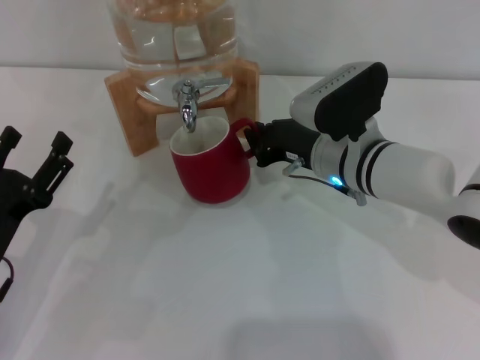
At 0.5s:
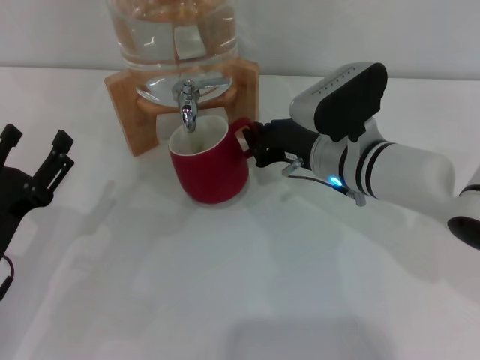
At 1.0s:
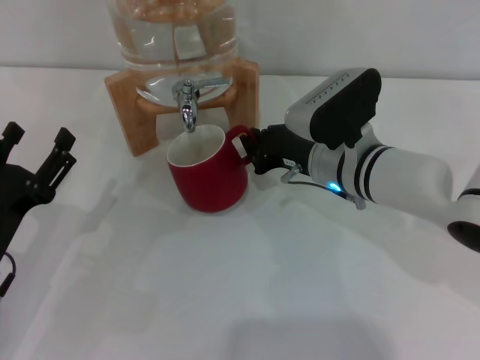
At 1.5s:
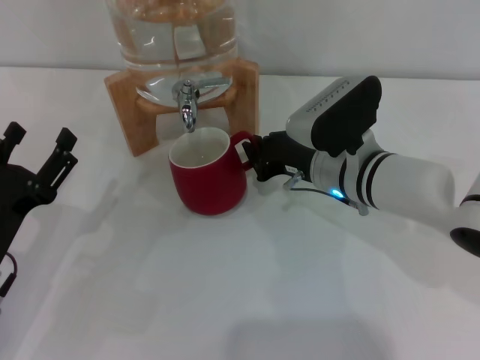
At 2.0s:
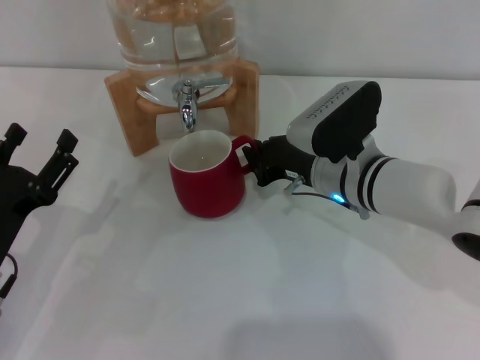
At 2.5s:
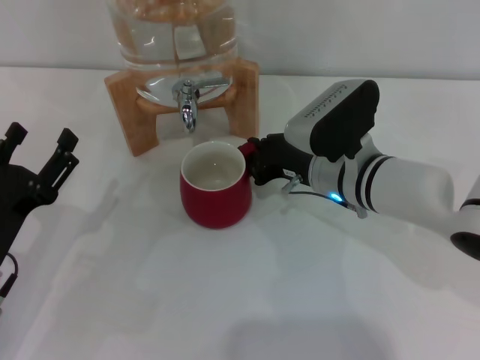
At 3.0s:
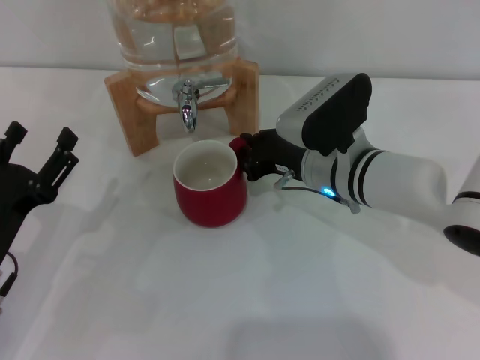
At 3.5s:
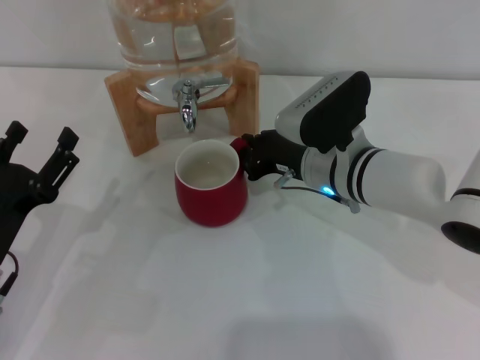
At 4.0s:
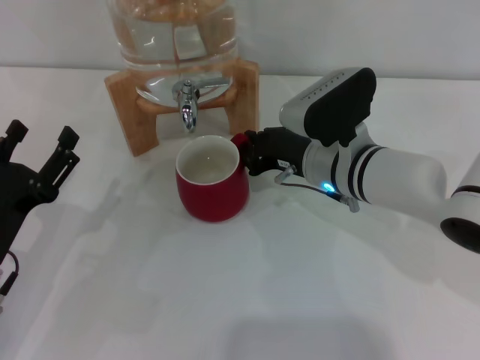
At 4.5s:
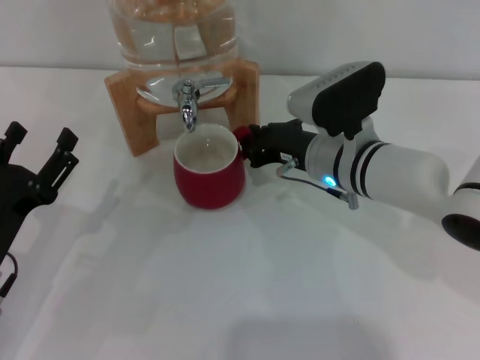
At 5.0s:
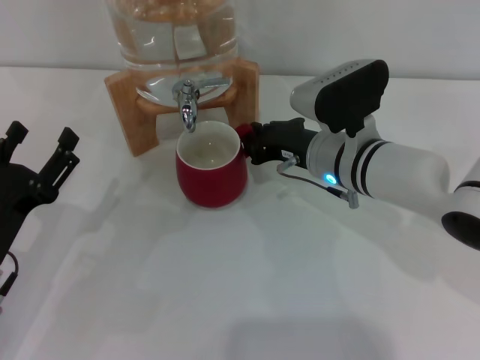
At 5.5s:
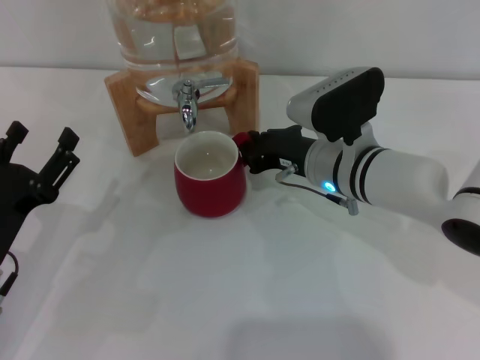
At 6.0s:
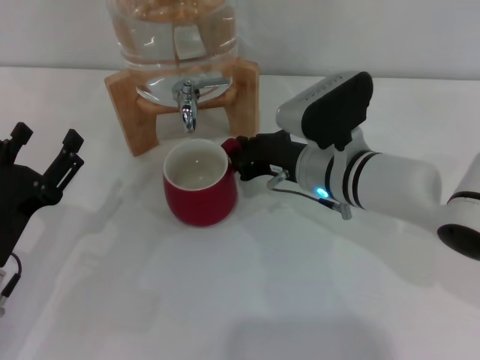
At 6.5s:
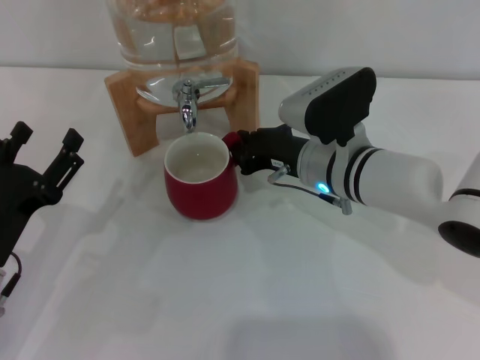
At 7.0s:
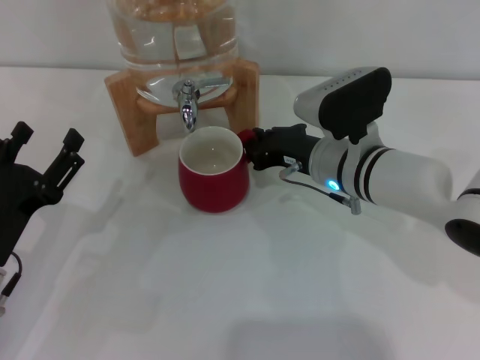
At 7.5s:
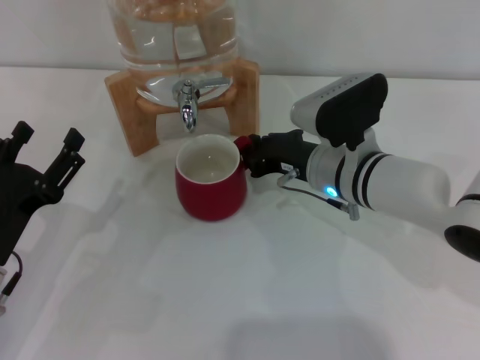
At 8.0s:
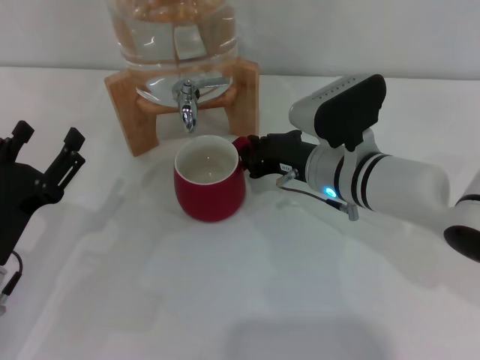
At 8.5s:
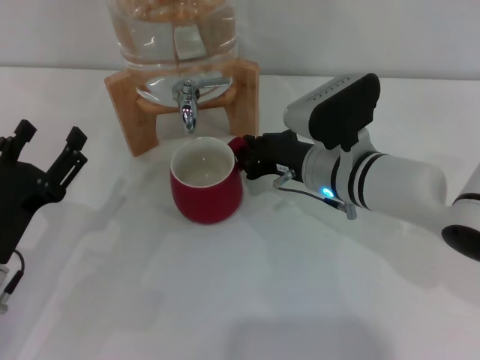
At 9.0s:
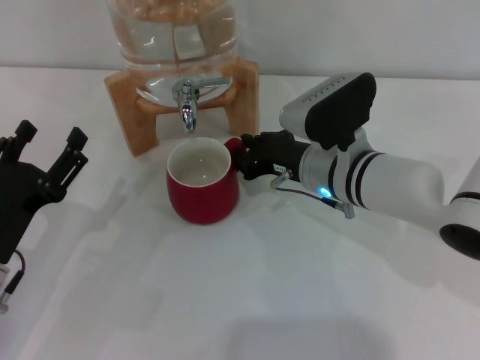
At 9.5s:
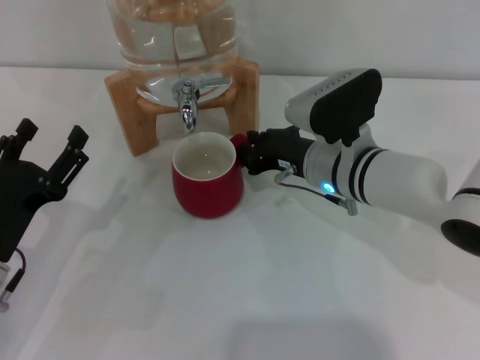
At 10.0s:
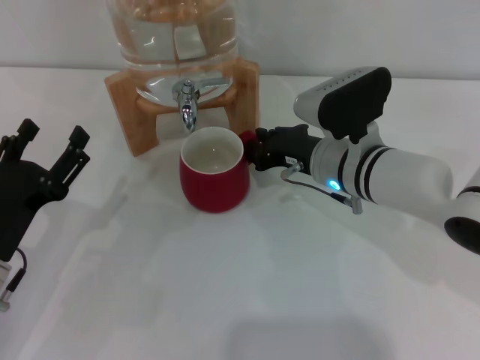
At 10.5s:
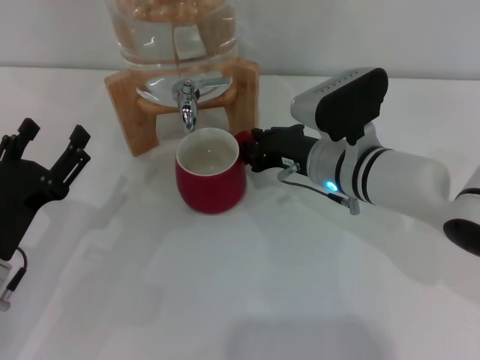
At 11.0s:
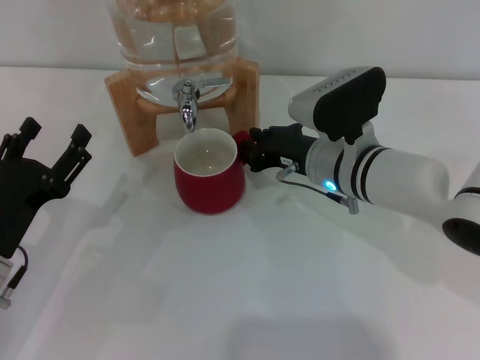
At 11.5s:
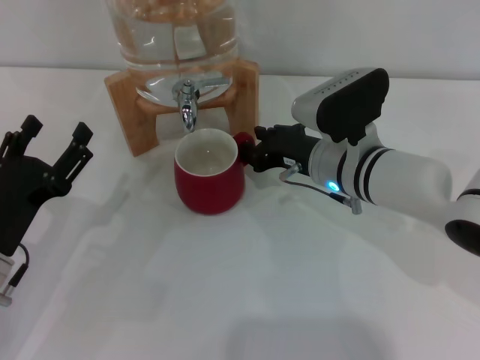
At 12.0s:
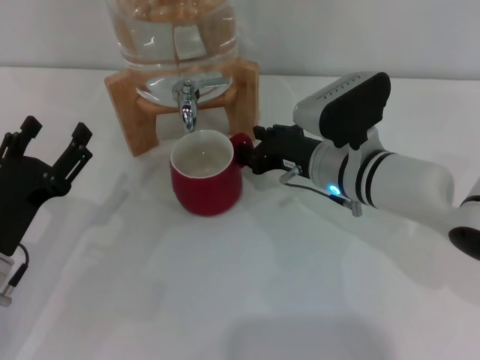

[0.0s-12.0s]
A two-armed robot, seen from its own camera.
Task of the whole recording: the right gripper pick up the red cup and place it horizontally under the faucet, the left gripper turn on the faucet to fill the cup, and then turn off the faucet.
0.0s to 8.0s: The grippers move only a little.
8.0s to 12.0s: Neither gripper changes place.

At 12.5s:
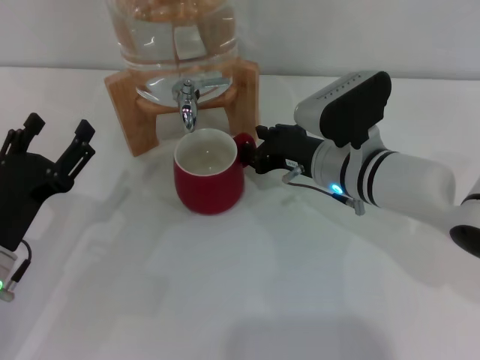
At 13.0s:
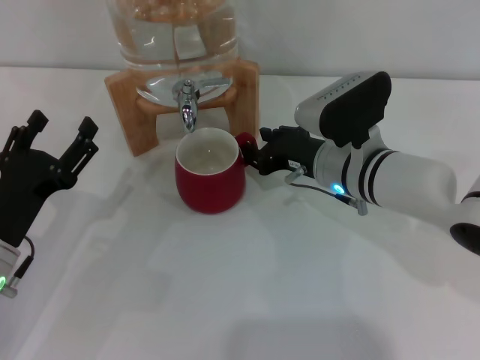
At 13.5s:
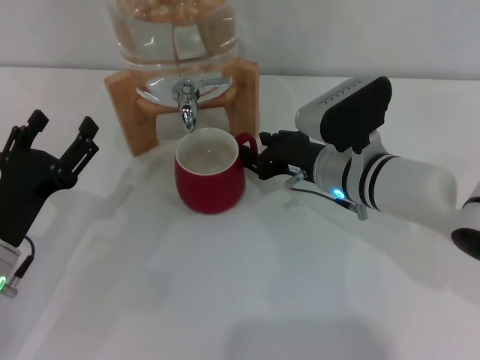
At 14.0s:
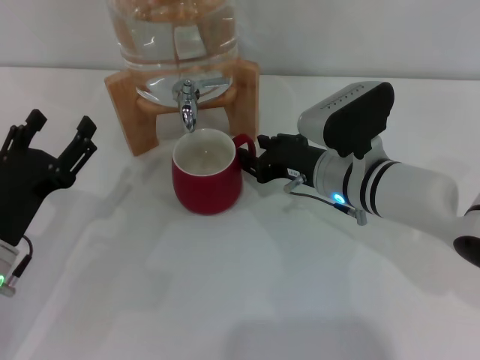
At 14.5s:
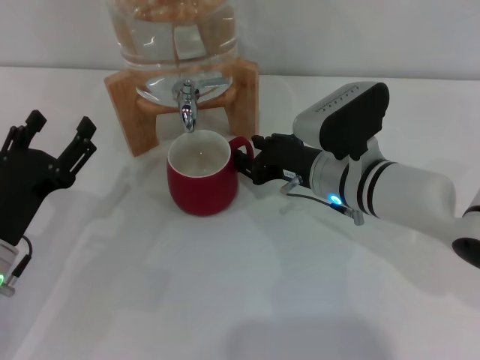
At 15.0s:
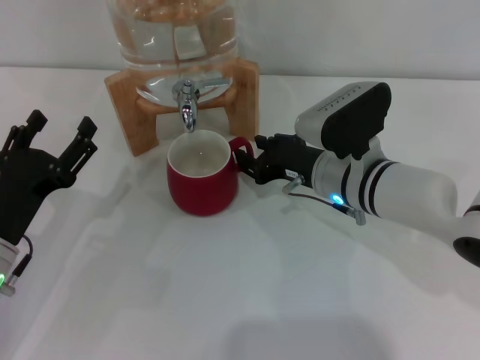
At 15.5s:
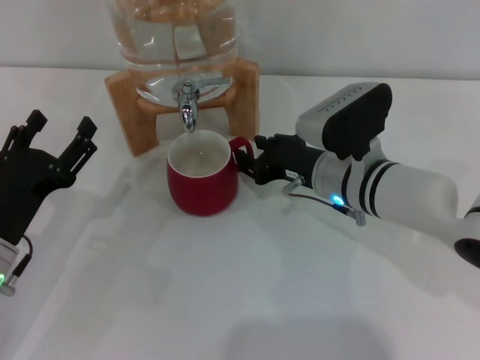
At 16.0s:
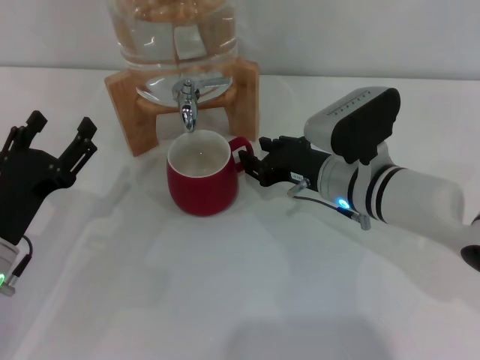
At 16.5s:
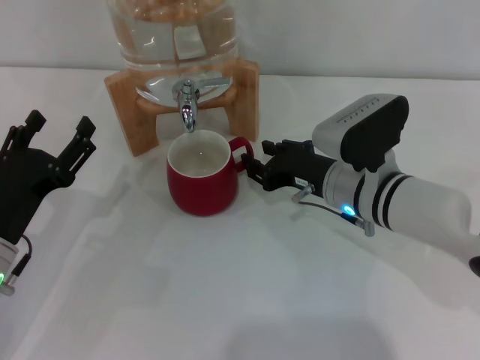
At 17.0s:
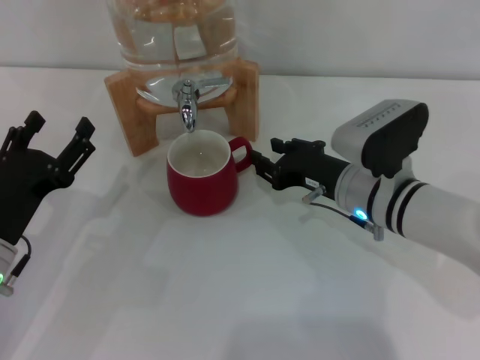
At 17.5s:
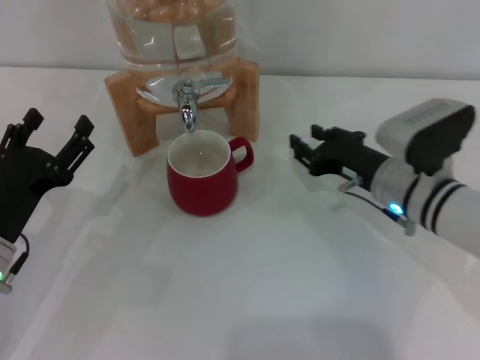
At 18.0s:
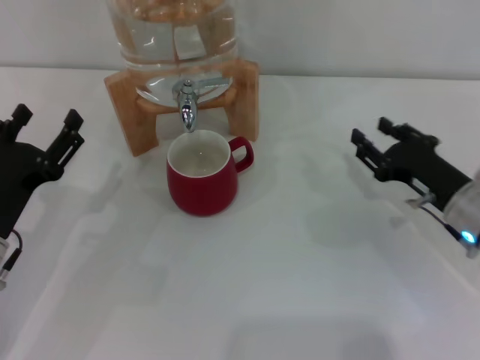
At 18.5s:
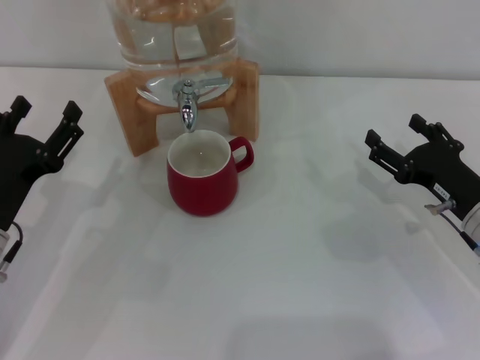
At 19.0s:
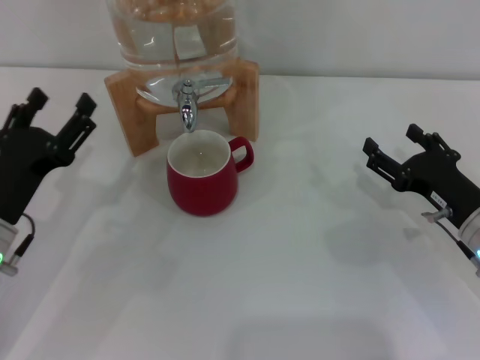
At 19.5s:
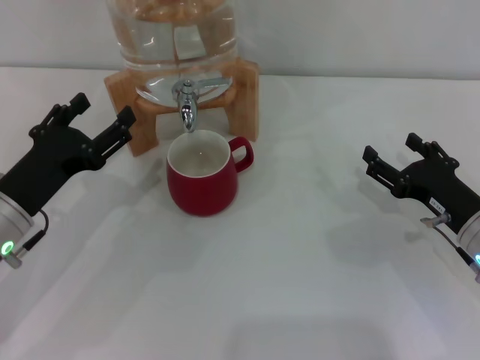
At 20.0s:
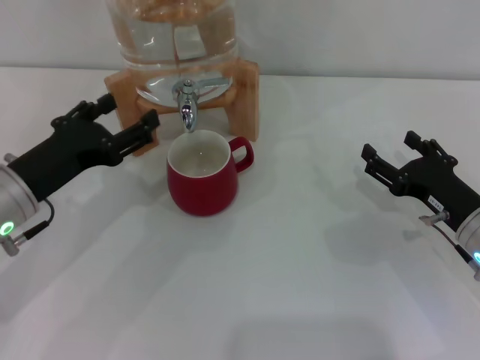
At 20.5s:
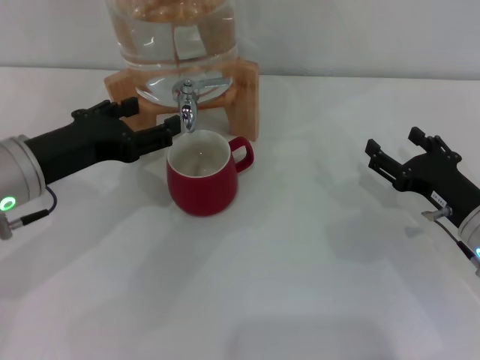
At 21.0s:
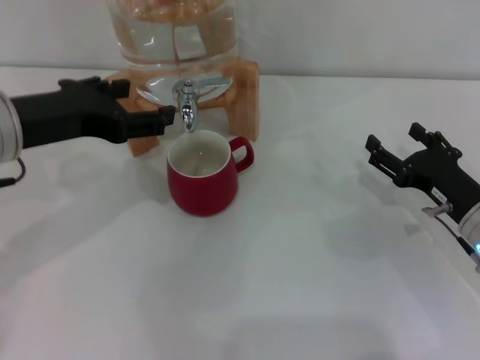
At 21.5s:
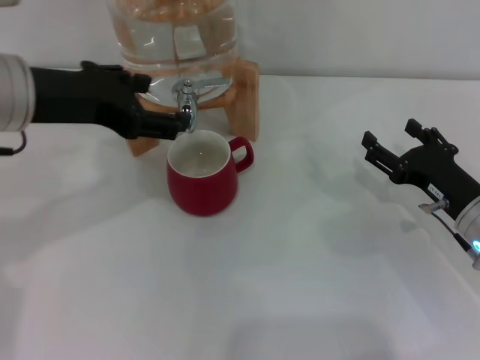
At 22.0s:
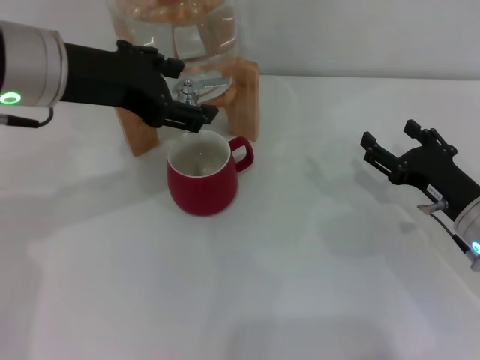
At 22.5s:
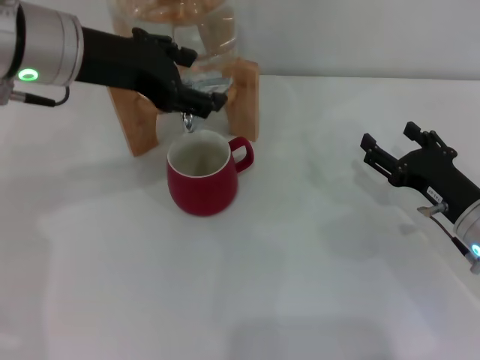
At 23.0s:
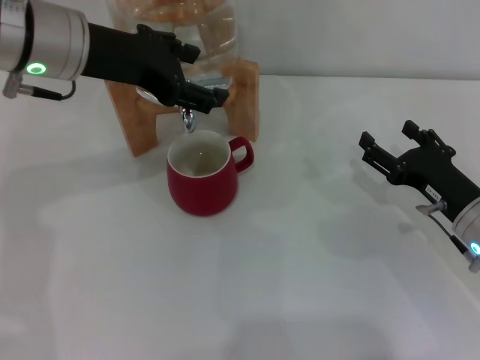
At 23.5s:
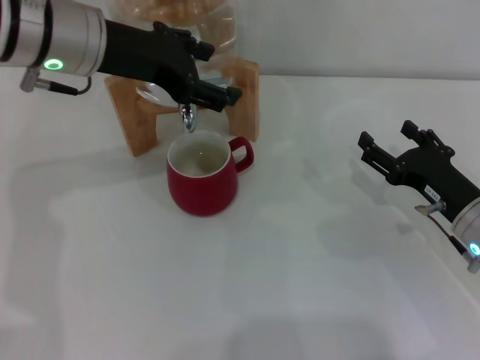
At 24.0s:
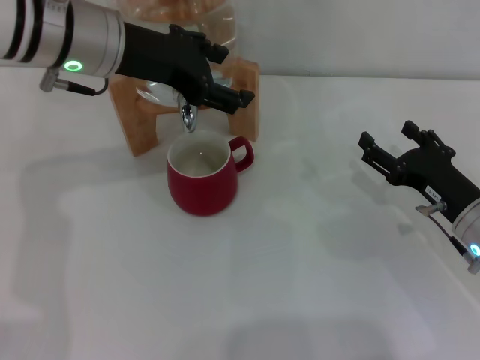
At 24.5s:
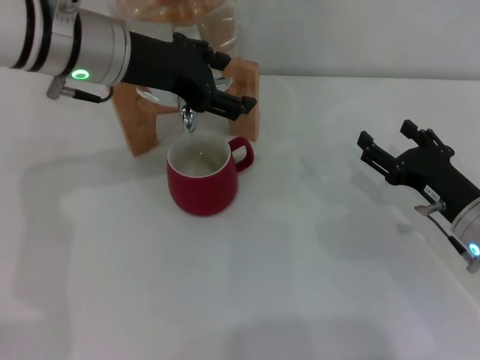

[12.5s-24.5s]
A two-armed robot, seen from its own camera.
Task of the whole recording: the right gripper pick up the red cup and place it horizontally under the faucet, the left gripper turn on the faucet to fill the cup, and then turn off the faucet.
Step, 12.5s to 17.0s: Move the cup beneath the water dispenser nozzle with the right gripper.
12.5s to 14.5s: Both grippers stay about where they are.
14.5s to 16.5s: The grippers move only a little.
16.5s to 18.5s: The right gripper shifts roughly 15 cm to the right, and opens its fingers.
18.5s to 20.5s: The left gripper moves upward, some 10 cm.
20.5s to 22.5s: The left gripper goes approximately 15 cm upward, forward and to the right.
22.5s to 24.5s: The grippers make only small movements.

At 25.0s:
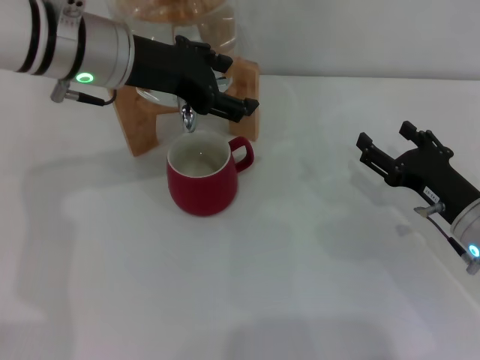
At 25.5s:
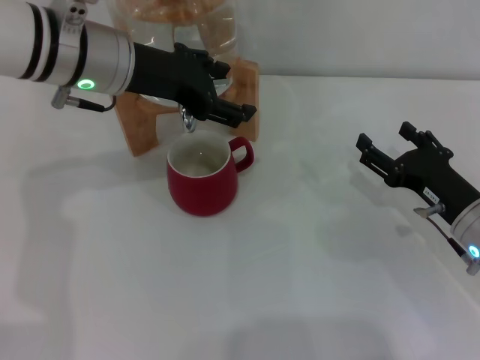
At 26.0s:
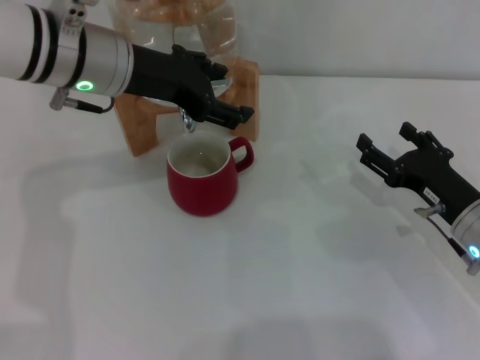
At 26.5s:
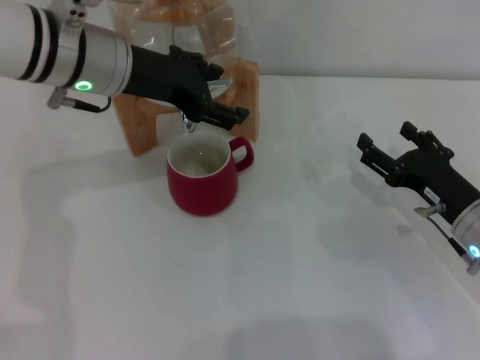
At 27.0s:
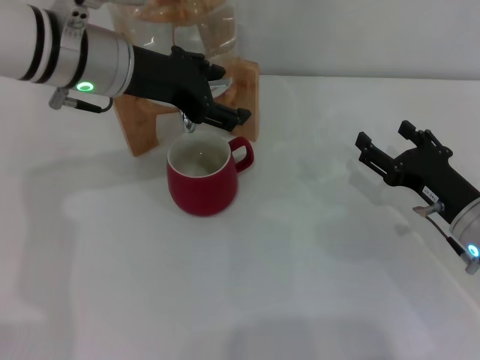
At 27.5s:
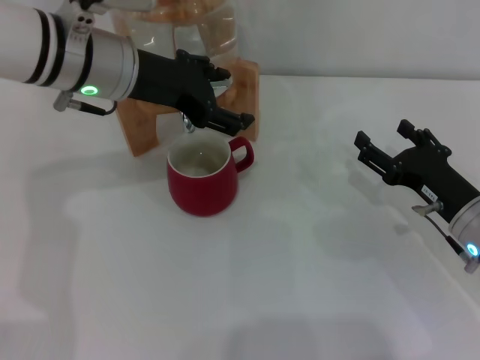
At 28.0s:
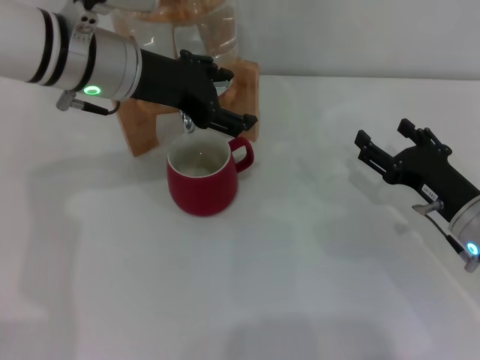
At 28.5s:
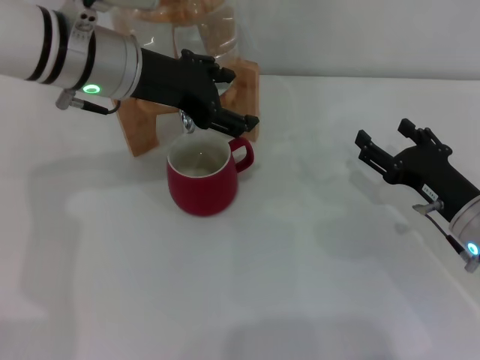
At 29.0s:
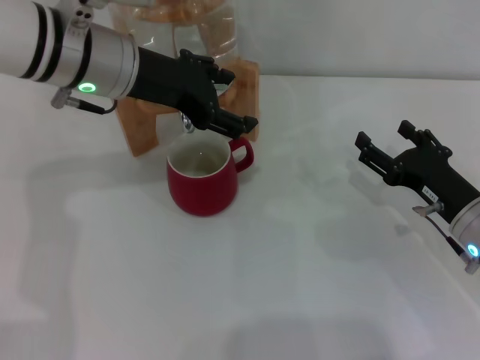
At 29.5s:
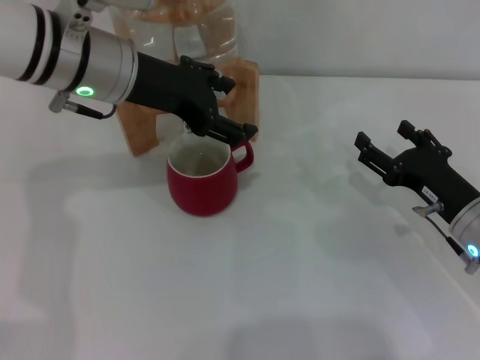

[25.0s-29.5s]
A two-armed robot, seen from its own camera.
Task of the whole recording: the right gripper pick up the red cup and place it horizontally under the faucet, the left gripper turn on the faucet to fill the cup, and then turn off the faucet.
25.0s to 27.0s: Neither gripper changes place.
27.0s to 29.5s: Neither gripper changes place.
